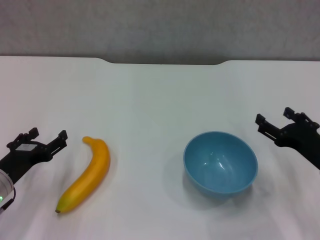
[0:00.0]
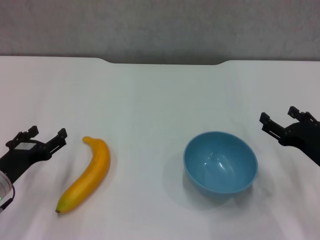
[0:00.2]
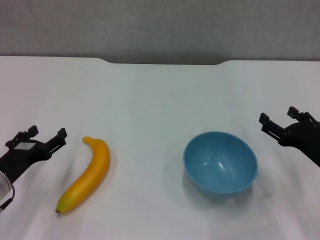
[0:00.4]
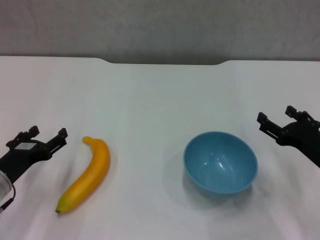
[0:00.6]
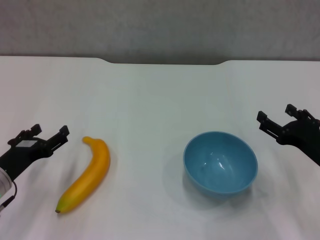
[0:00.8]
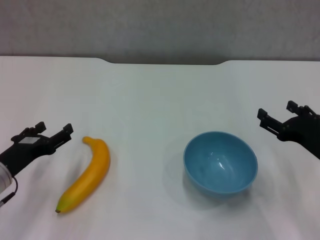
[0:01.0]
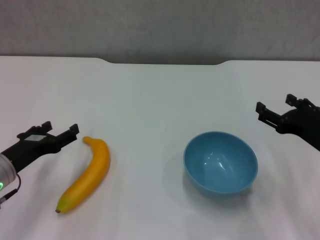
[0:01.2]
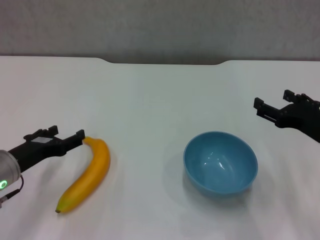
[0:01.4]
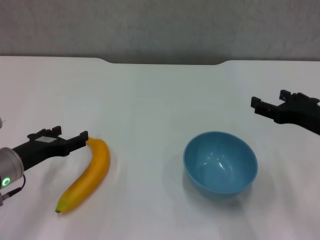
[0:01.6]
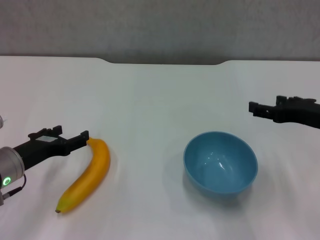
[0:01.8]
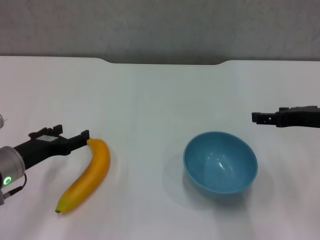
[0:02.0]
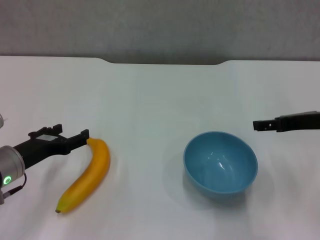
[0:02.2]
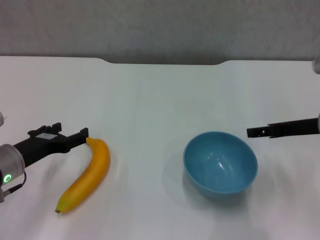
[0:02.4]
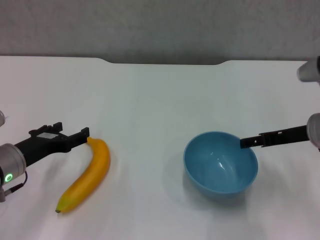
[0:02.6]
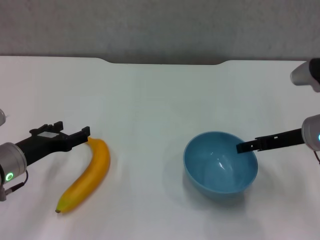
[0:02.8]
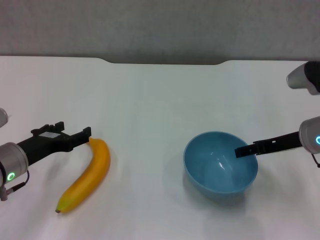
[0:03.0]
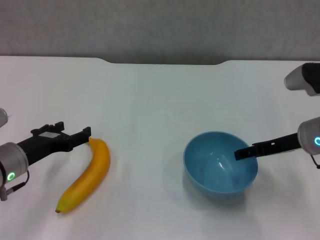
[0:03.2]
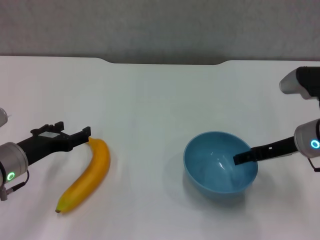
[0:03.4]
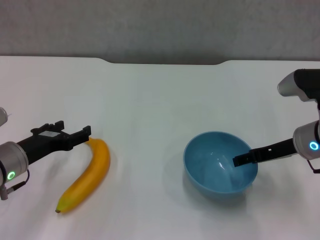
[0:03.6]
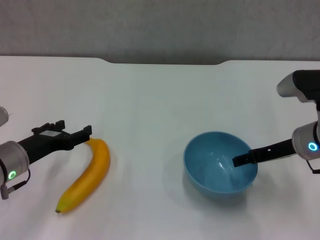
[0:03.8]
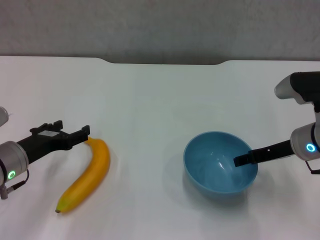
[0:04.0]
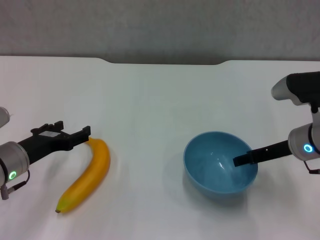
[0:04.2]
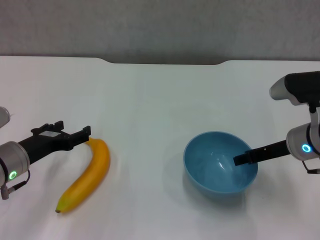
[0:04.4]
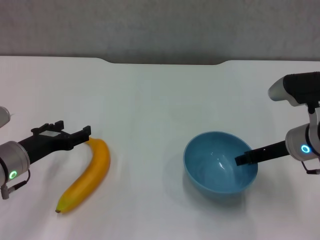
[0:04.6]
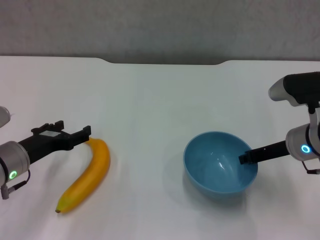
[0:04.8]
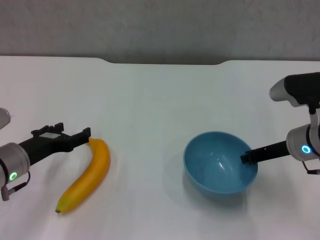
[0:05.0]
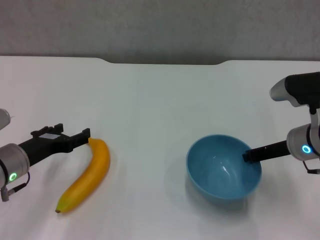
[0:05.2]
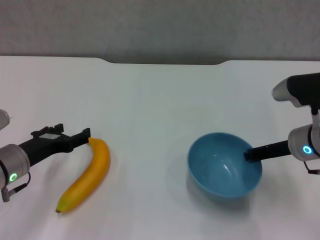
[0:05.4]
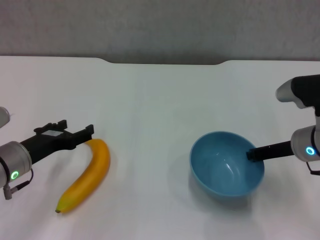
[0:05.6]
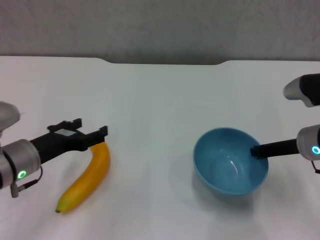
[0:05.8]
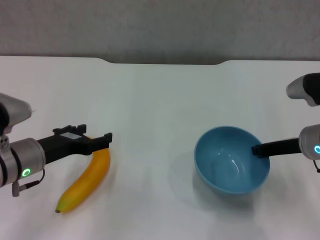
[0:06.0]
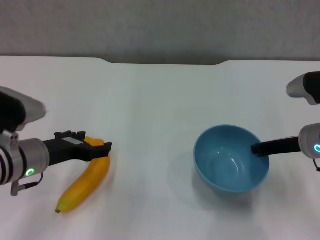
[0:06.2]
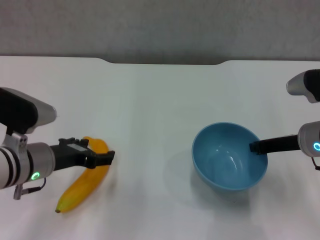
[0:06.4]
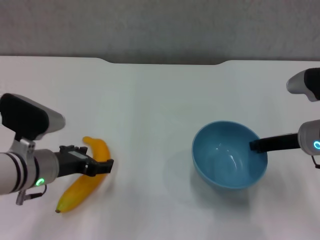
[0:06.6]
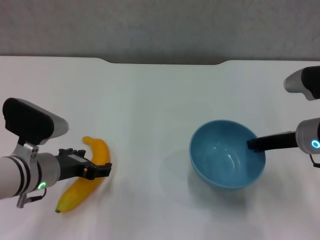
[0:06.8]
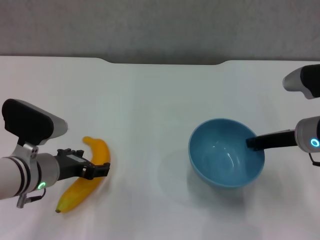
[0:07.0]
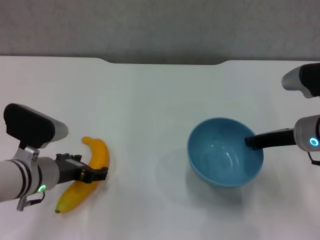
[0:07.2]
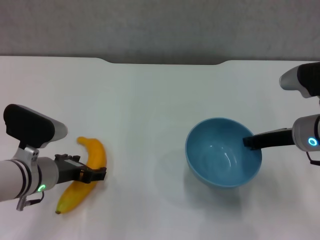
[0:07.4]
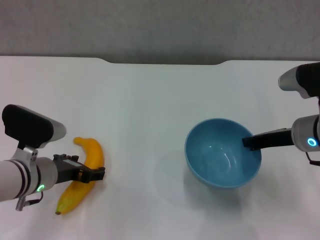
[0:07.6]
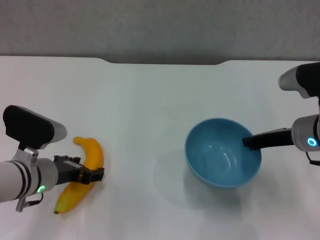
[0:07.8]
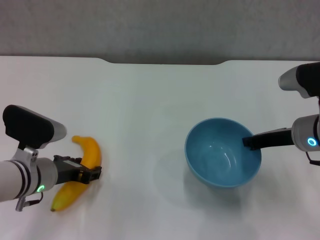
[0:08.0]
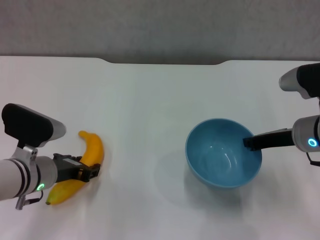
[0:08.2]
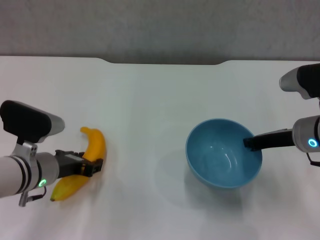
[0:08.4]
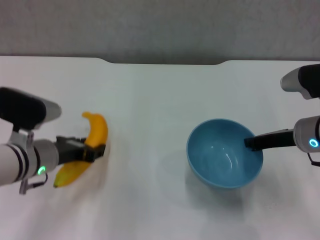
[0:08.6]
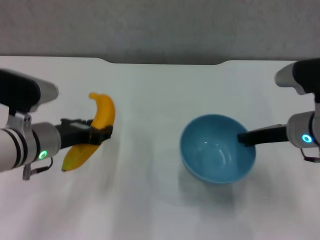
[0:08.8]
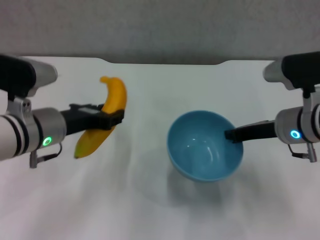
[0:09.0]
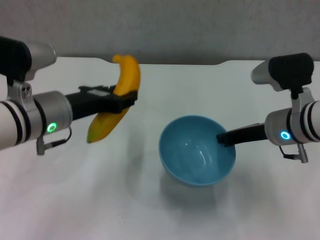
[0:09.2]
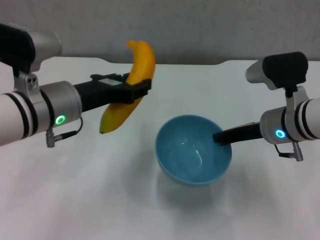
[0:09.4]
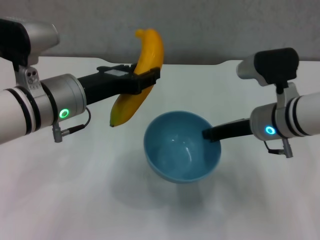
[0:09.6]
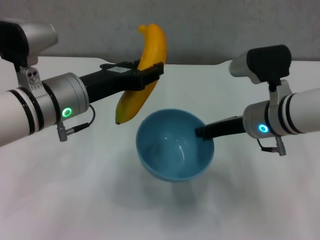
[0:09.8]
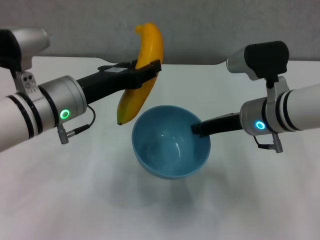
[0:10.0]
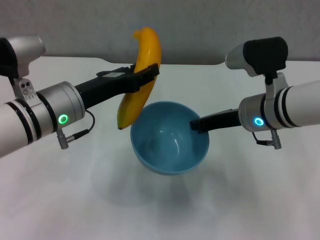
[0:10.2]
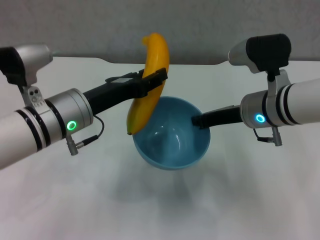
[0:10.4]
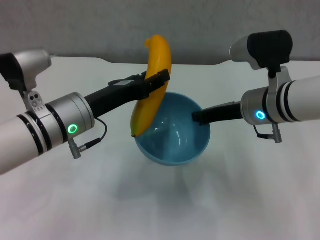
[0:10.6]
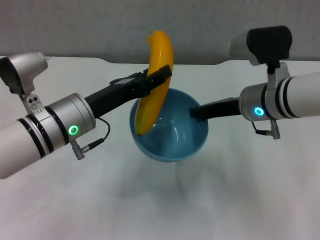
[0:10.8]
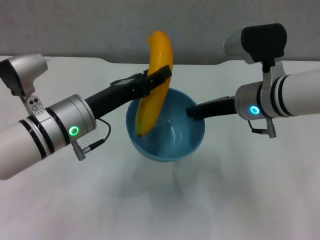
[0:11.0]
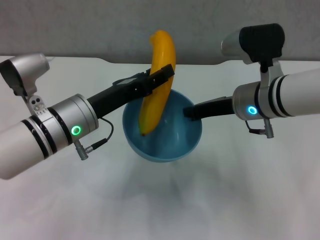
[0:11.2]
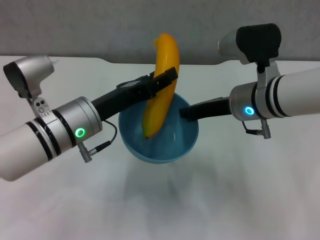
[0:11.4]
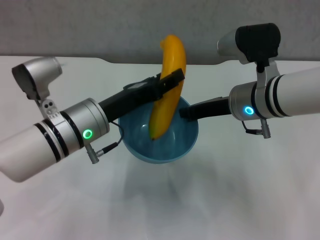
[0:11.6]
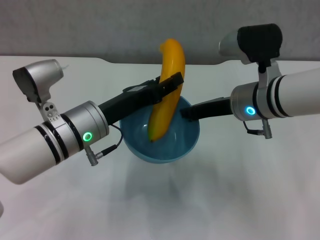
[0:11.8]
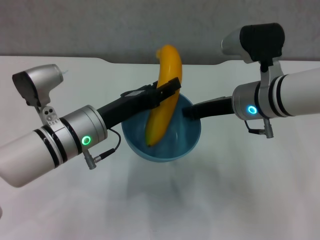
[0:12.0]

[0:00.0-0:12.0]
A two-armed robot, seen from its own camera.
Step, 0:00.0 to 0:05.2: Grasp the blue bowl with right gripper.
Step, 0:05.4 to 0:06.0: Lift the blue bowl with right gripper.
Step, 0:06.2 to 0:08.0: Grasp the banana with left gripper.
0:00.0 to 0:01.6: The right gripper heads upward, covering approximately 10 cm.
0:01.6 to 0:03.0: The right gripper is displaced forward by some 5 cm.
0:03.0 to 0:04.4: The grippers stay close to where they were, moving slightly.
0:04.4 to 0:06.0: The right gripper closes.
0:07.6 to 0:09.0: The left gripper travels upward by roughly 10 cm, and closes its fingers.
0:09.0 to 0:10.4: The right gripper moves to the left, roughly 5 cm.

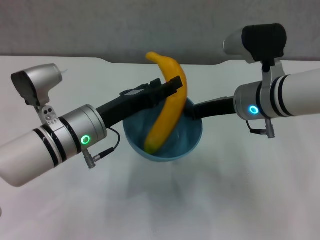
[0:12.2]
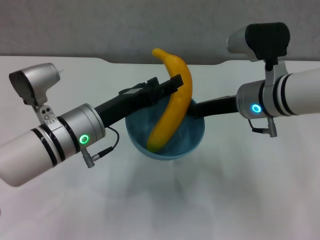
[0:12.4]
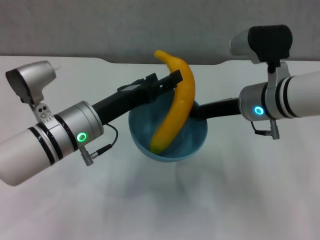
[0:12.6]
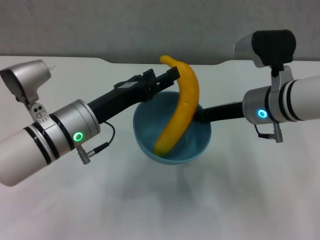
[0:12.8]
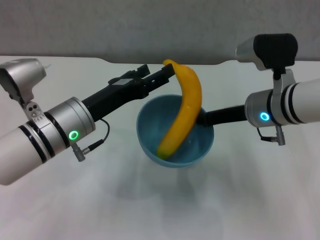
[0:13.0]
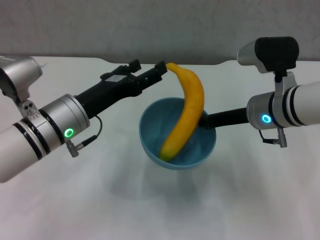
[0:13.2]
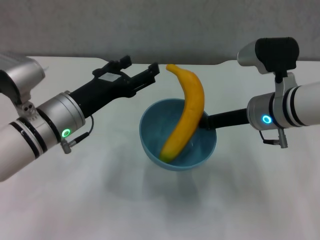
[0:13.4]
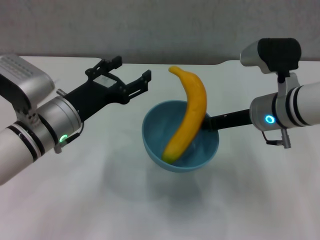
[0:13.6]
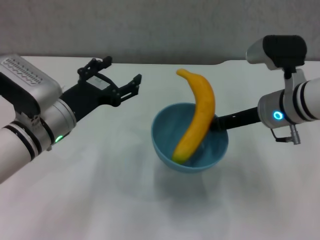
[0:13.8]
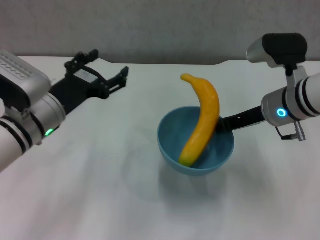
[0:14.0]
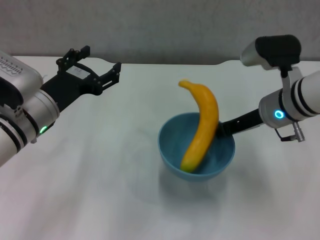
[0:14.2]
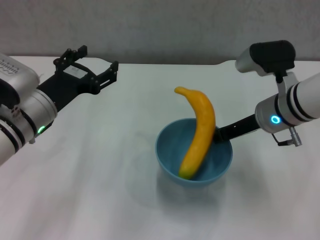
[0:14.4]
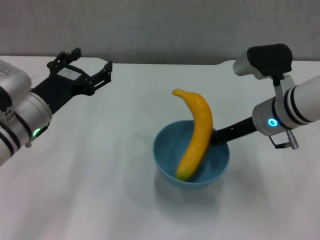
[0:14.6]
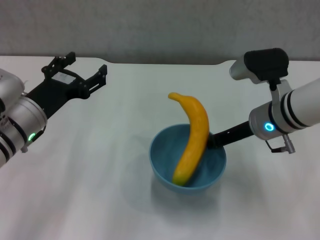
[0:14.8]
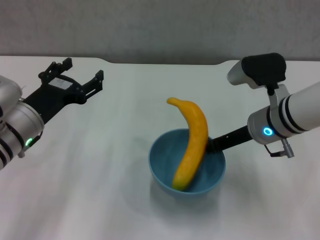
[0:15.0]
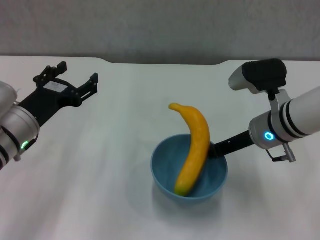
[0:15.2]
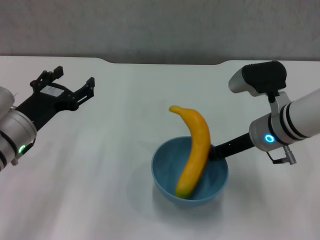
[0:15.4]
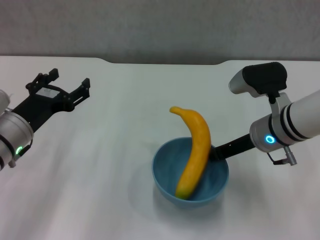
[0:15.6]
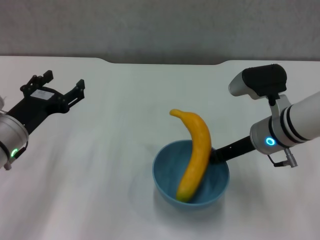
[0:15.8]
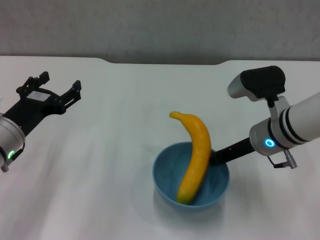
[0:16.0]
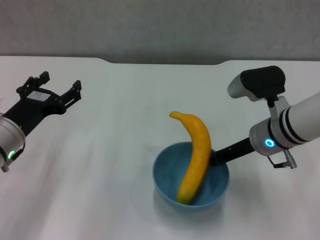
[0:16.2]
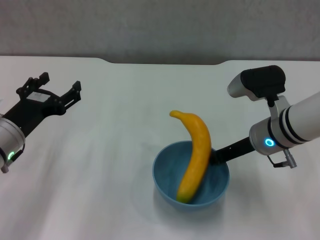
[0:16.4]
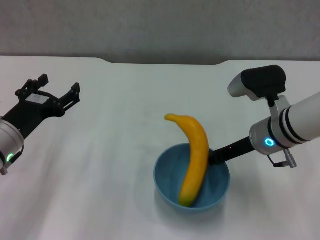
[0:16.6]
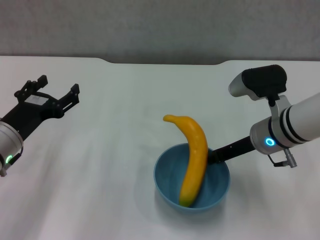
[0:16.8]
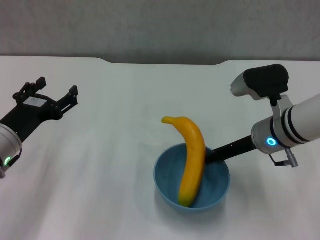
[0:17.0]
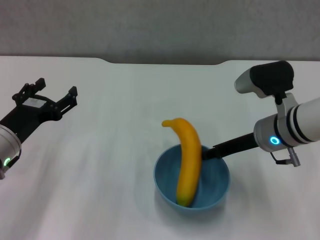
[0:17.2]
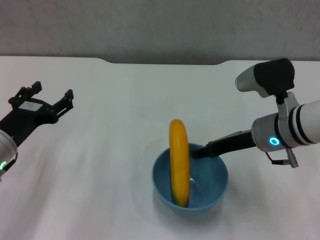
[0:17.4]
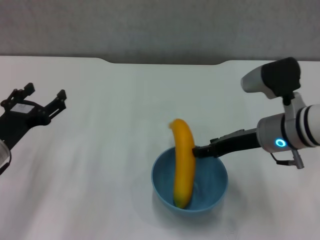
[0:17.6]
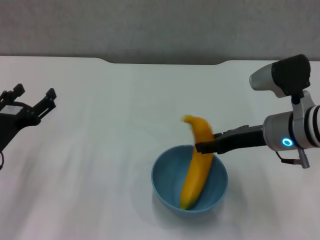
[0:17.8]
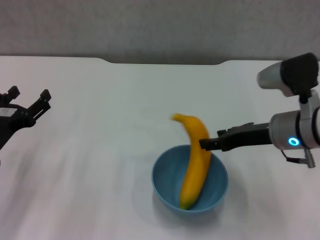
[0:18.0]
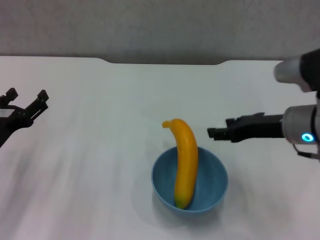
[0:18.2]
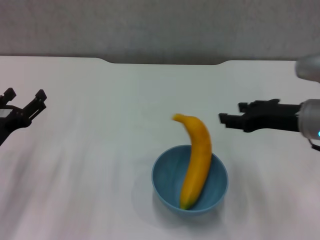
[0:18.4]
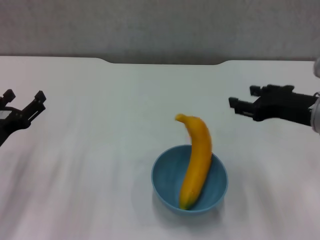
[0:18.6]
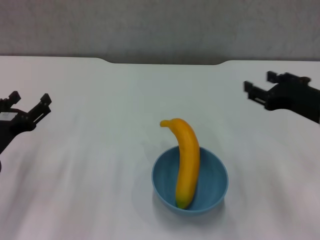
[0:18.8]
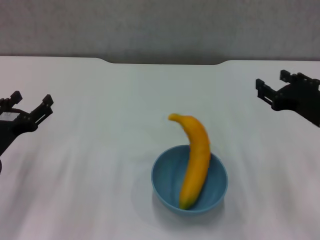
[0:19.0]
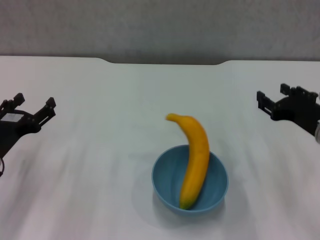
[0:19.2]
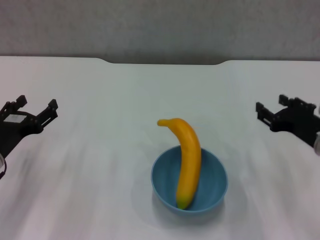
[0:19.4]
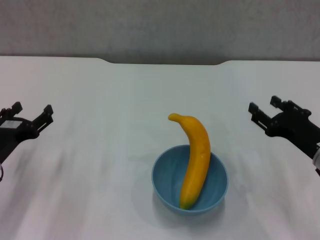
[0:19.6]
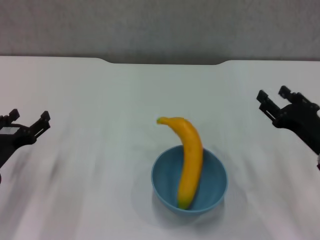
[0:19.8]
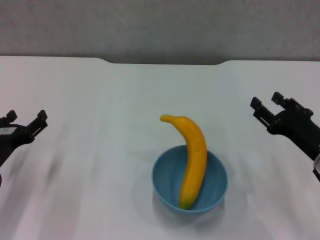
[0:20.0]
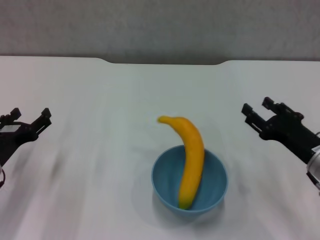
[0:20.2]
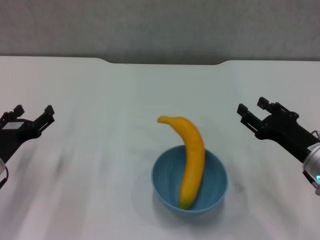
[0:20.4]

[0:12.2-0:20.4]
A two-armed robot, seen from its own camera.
Step, 0:12.8 to 0:18.0: Place the bowl on the table with right gripper.
0:12.2 to 0:13.8: The left gripper opens its fingers.
0:13.8 to 0:15.4: The left gripper moves to the left, about 5 cm.
0:15.4 to 0:17.2: There are only small adjustments of the grippers.
0:17.2 to 0:18.8: The right gripper is displaced to the right, backward and upward by roughly 10 cm, and opens its fingers.
0:18.8 to 0:20.4: The right gripper heads downward, covering approximately 10 cm.
